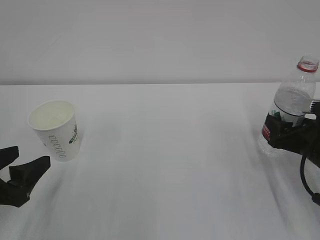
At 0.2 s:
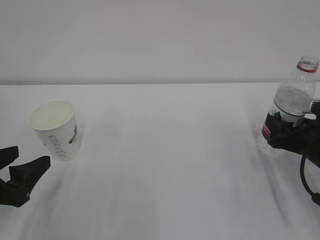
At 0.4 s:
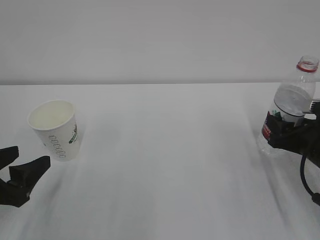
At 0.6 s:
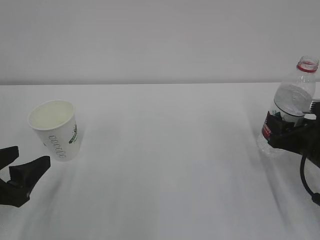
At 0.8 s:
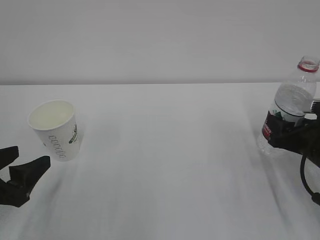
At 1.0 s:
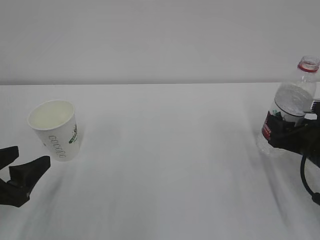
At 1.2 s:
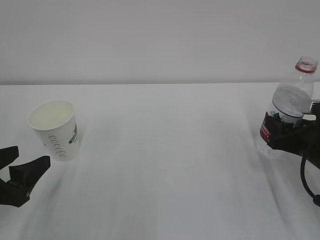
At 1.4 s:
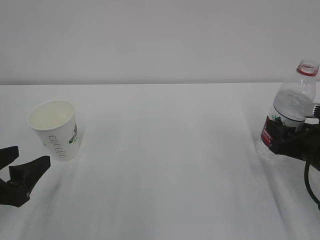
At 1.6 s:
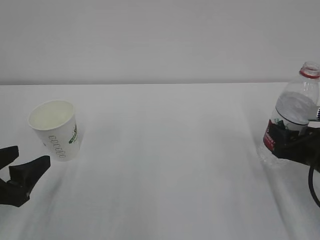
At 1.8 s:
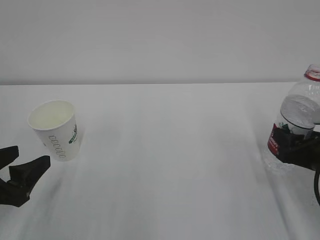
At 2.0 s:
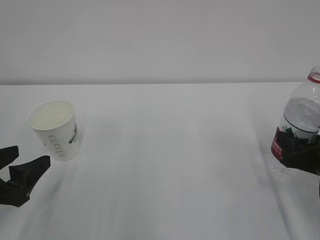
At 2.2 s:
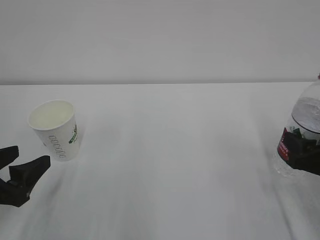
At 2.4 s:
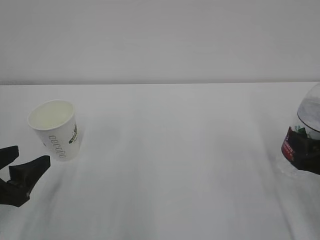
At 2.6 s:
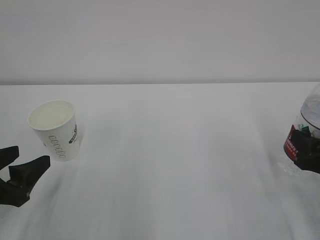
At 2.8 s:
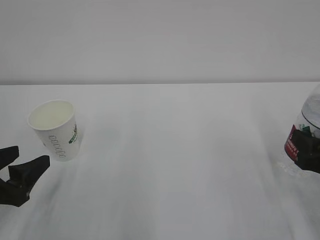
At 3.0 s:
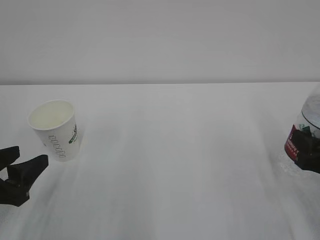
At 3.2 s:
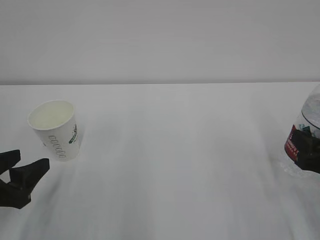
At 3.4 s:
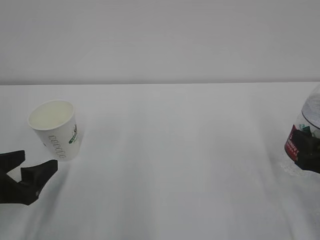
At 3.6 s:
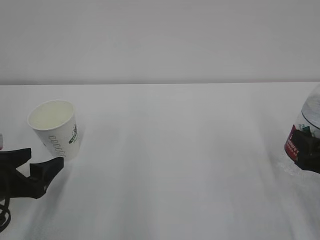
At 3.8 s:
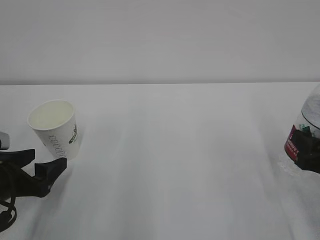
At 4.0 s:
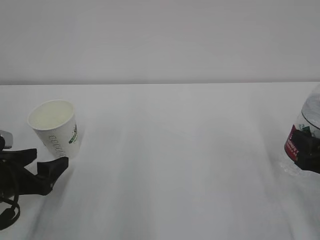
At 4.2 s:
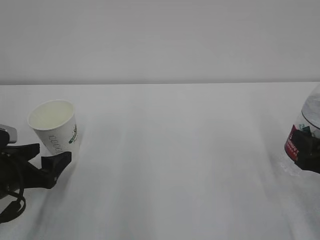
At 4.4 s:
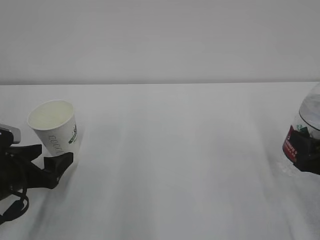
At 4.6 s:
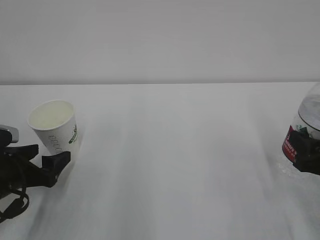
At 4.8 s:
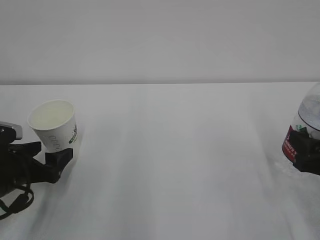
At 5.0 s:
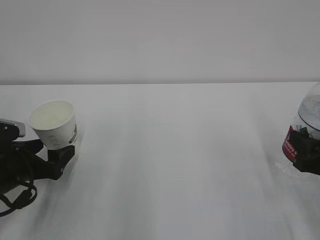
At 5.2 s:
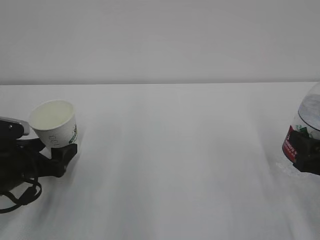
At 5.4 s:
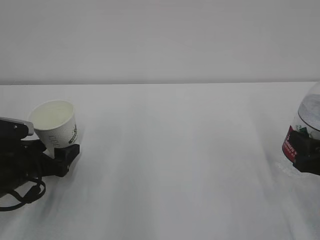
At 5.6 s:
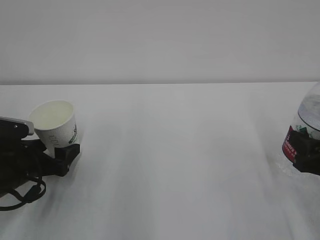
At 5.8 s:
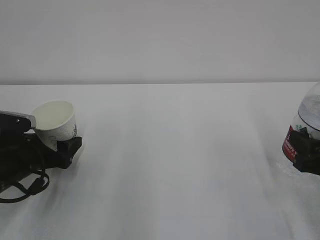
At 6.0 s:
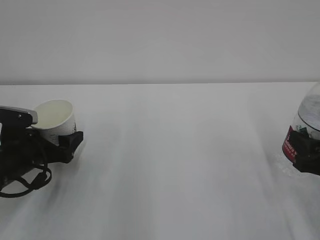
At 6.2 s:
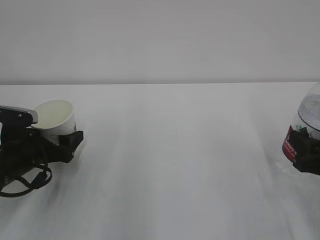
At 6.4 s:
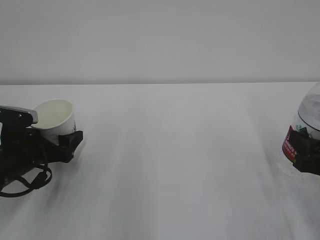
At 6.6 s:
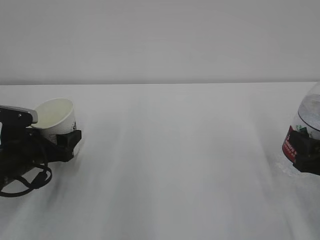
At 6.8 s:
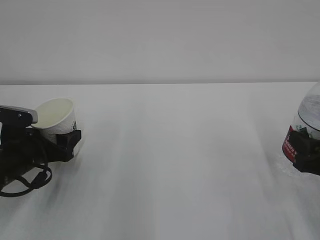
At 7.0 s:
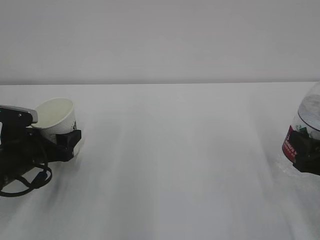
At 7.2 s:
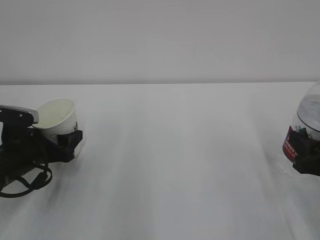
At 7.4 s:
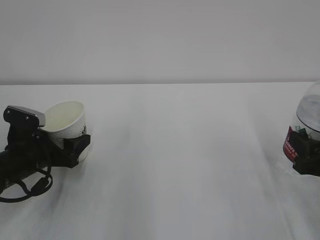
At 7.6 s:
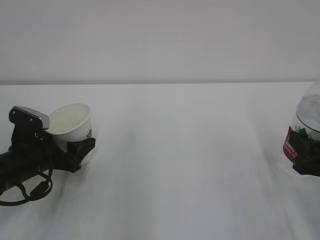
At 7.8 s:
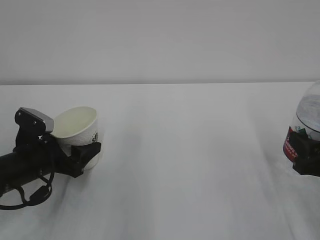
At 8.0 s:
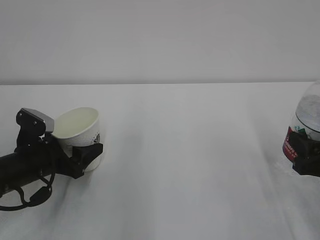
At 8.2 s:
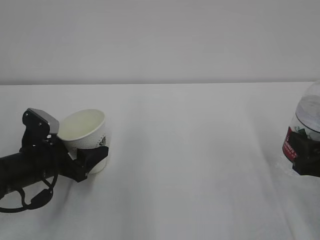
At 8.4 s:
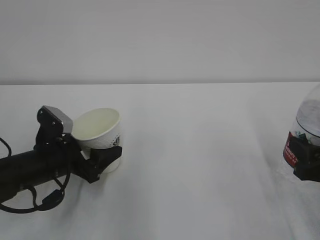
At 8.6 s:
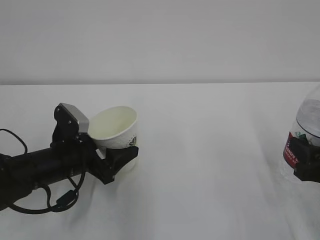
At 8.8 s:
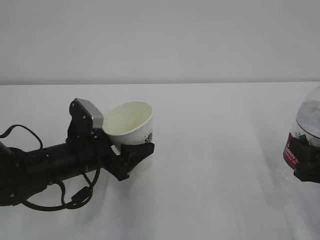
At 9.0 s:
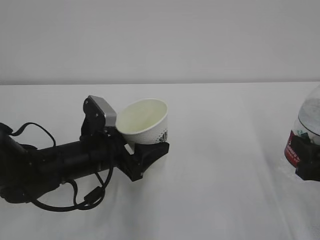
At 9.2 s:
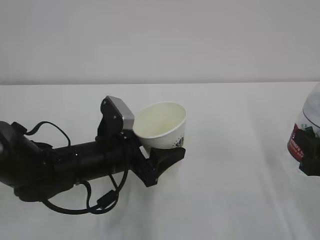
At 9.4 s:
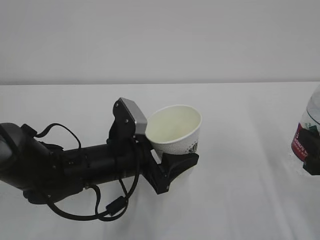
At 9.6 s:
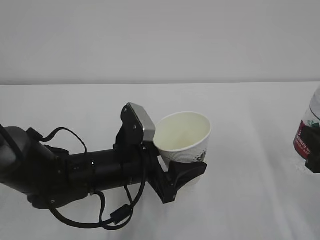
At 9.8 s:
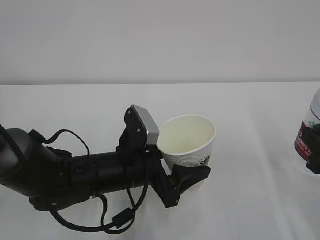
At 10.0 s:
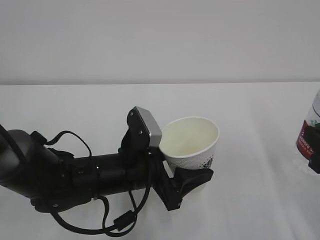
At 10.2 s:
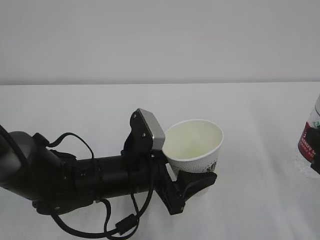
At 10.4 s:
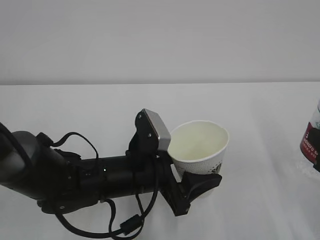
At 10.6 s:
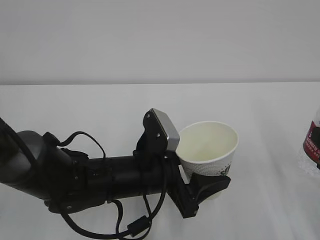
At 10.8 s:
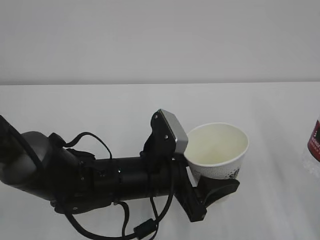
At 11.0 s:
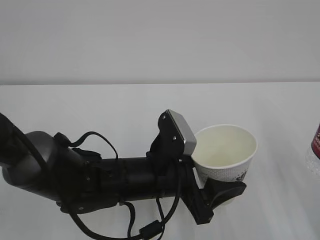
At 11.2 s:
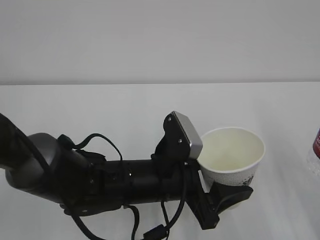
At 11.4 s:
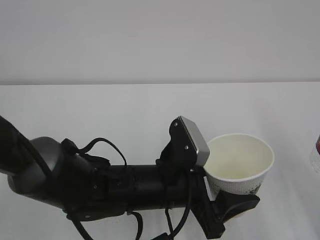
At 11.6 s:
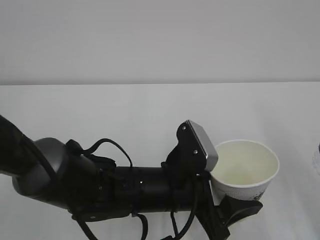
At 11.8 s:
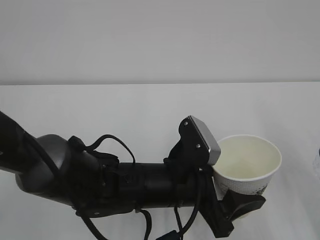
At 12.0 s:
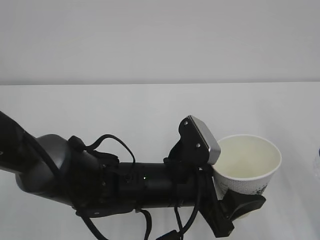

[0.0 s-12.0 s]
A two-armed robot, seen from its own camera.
0.0 to 1.6 s: The grippers make only small movements.
1.6 to 3.0 s: The right gripper shifts by approximately 5 cm.
3.0 to 4.4 s: The left gripper moves forward, roughly 5 cm, and opens up.
4.4 to 6.0 s: The left gripper moves forward, approximately 5 cm.
6.0 to 7.6 s: The left gripper closes up.
7.6 to 9.0 s: The left gripper travels to the right by roughly 10 cm.
9.0 to 10.4 s: The left gripper travels to the right by roughly 5 cm.
10.4 to 12.0 s: The left gripper travels to the right by some 5 cm.

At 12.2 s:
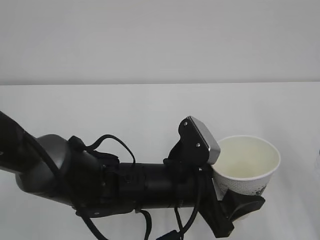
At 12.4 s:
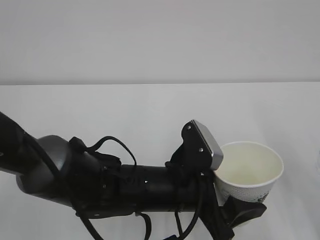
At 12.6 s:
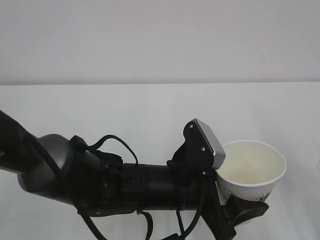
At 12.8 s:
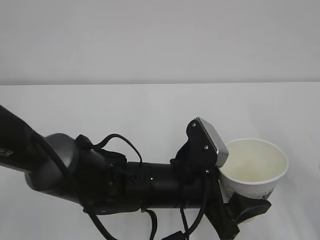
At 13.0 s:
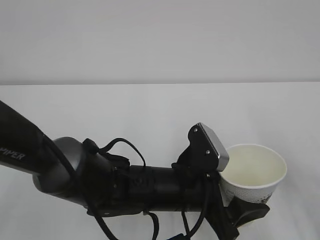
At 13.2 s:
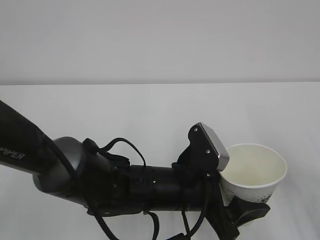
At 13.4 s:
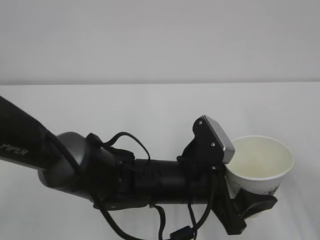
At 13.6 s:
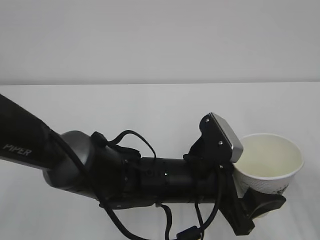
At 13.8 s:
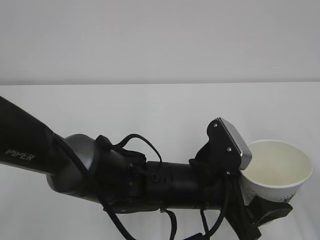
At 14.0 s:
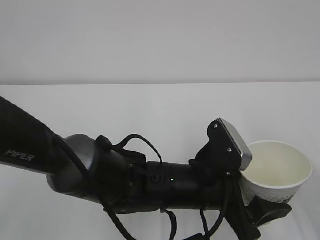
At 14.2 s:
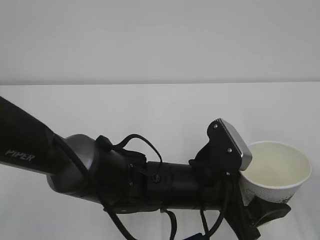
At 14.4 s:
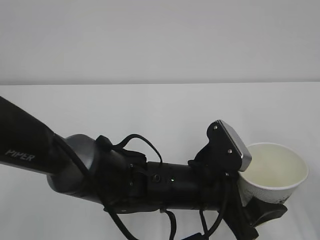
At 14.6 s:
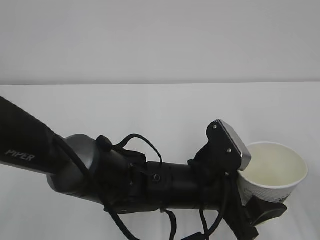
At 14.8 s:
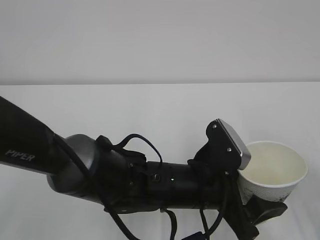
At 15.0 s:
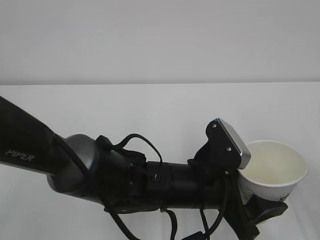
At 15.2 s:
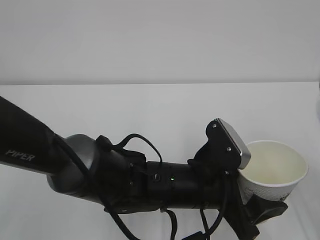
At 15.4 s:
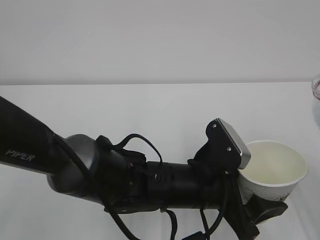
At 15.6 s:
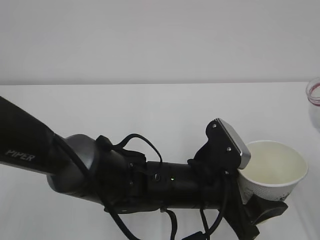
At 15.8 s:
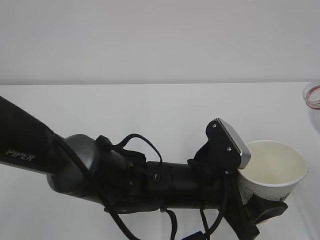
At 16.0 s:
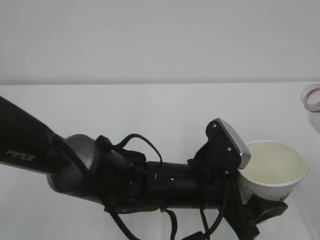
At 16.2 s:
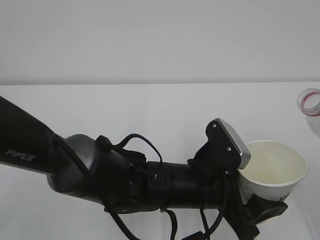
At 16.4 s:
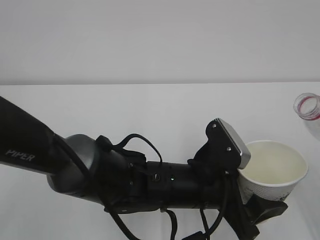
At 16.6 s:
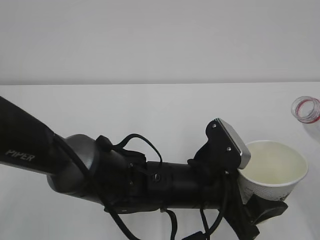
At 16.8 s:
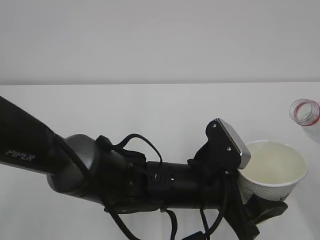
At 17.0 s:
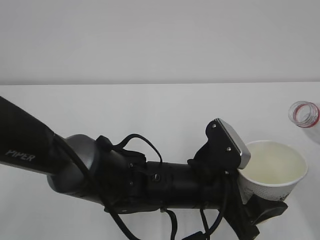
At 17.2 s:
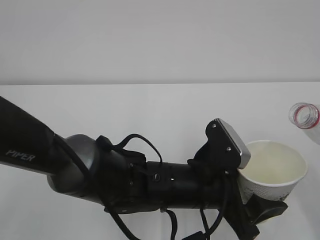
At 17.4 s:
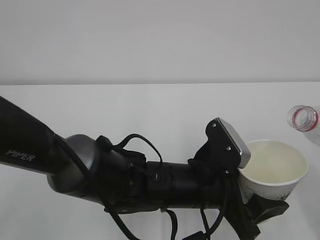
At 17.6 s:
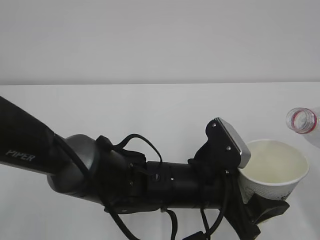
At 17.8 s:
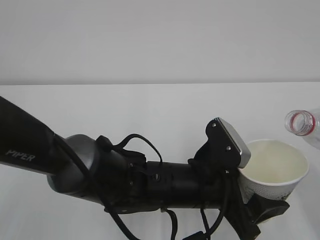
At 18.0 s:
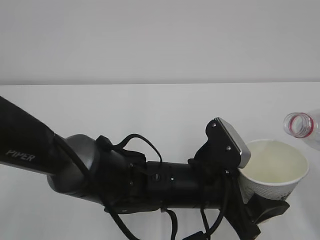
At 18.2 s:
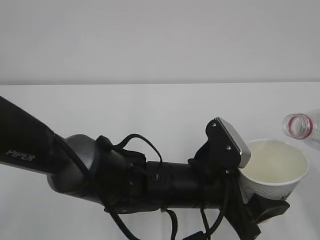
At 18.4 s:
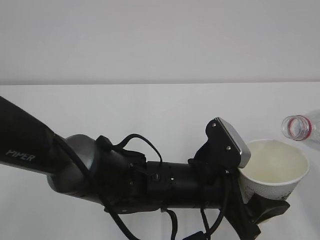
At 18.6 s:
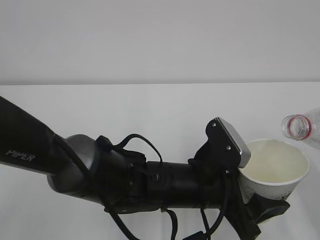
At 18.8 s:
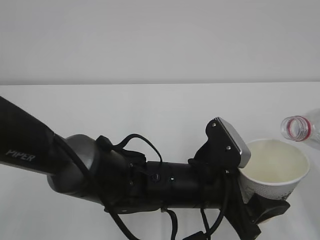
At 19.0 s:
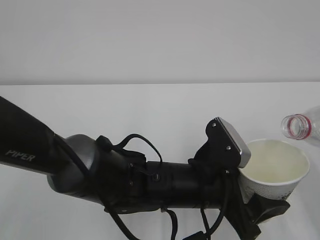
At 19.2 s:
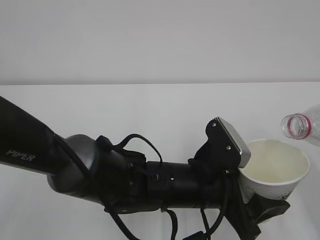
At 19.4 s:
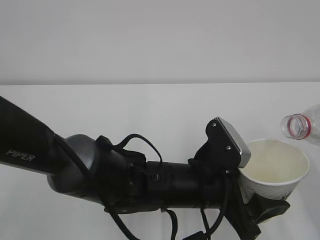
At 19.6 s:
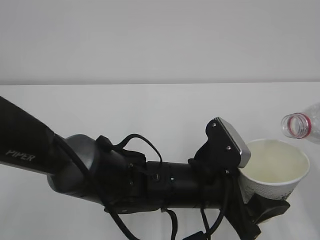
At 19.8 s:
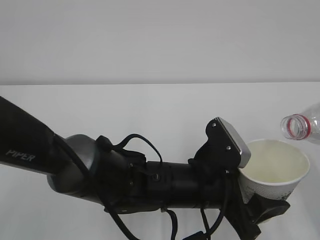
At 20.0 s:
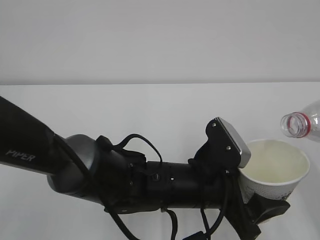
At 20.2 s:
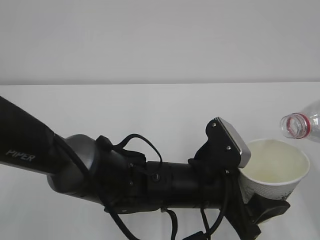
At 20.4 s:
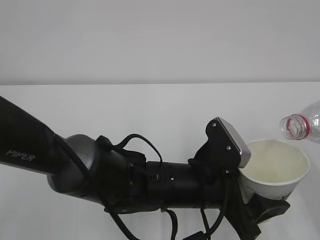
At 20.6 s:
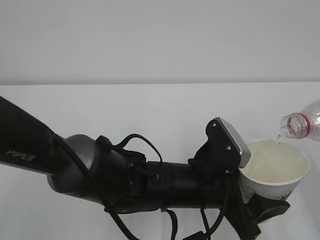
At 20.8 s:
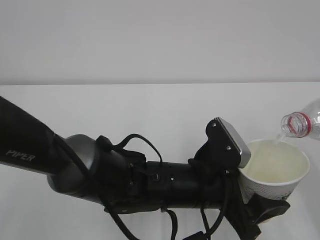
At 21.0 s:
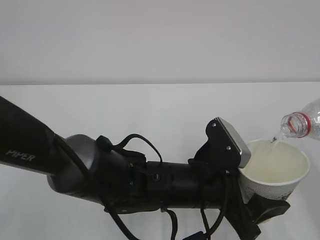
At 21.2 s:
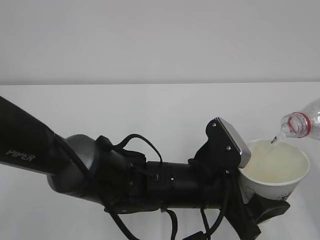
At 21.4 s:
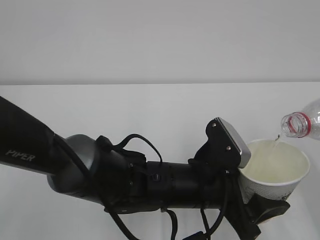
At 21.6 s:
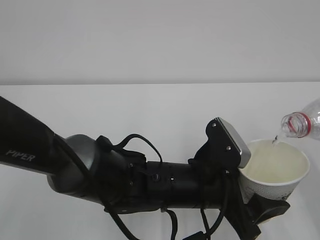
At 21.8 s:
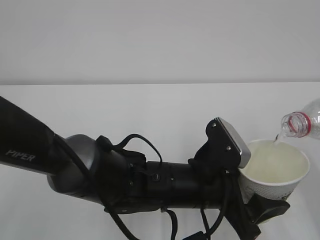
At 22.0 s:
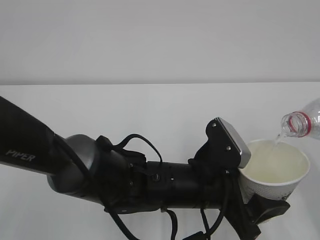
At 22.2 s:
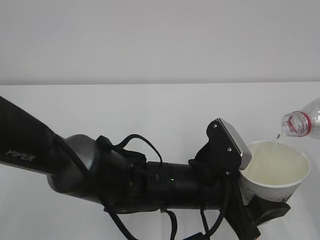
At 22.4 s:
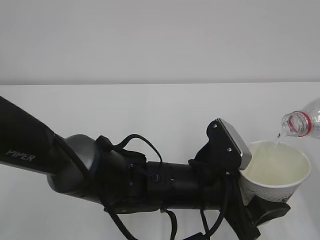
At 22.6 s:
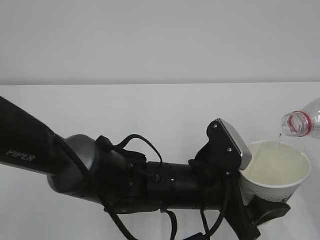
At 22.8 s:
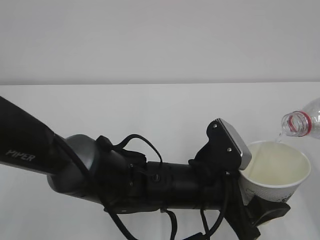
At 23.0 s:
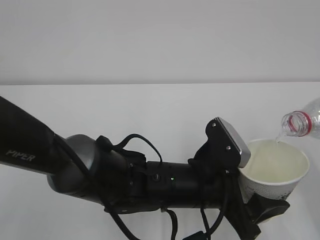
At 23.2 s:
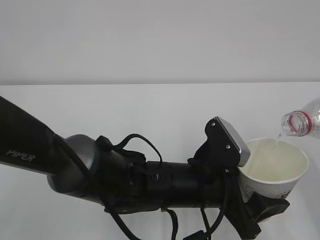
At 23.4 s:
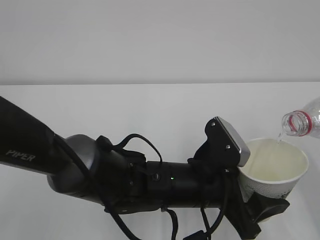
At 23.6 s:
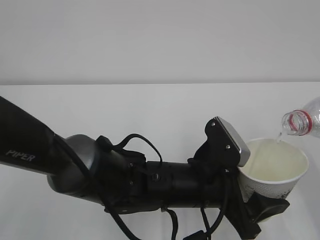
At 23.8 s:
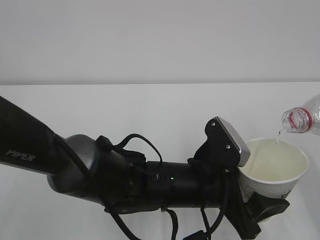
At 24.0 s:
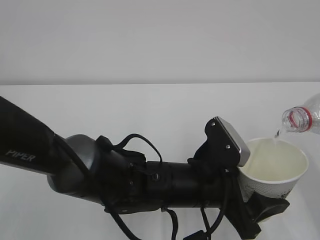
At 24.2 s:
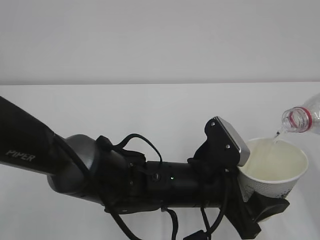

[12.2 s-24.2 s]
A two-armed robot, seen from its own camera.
13.8 to 15.2 s: The grippers move only a little.
16.6 to 18.2 s: The grippers stay close to where they were, moving slightly.
19.8 to 21.2 s: Both grippers stay put.
21.2 to 24.2 s: Both grippers stay about where they are.
